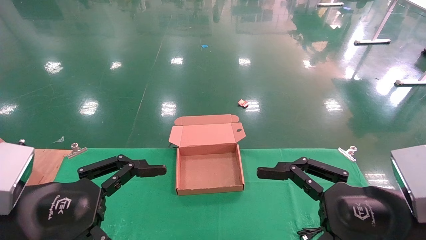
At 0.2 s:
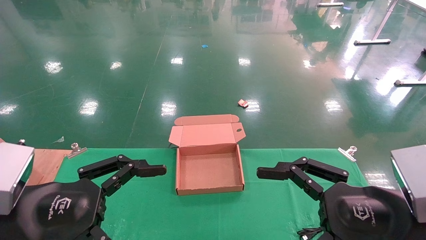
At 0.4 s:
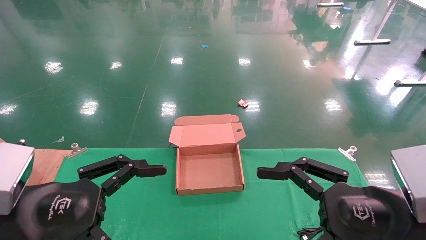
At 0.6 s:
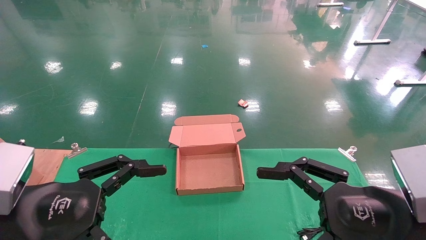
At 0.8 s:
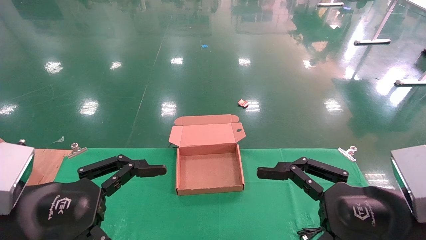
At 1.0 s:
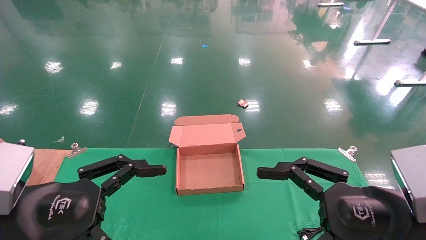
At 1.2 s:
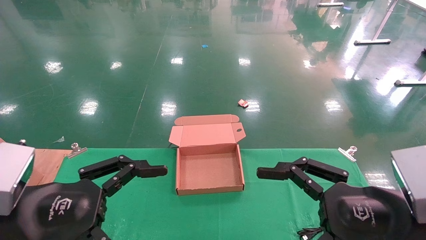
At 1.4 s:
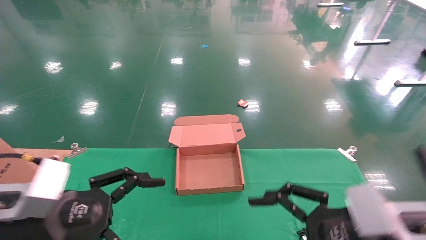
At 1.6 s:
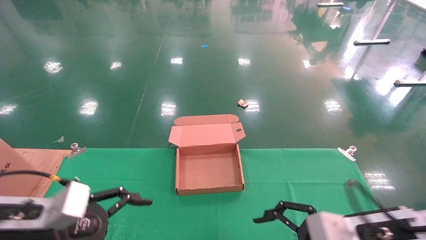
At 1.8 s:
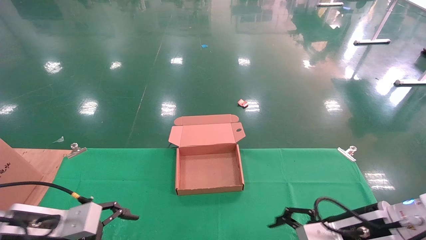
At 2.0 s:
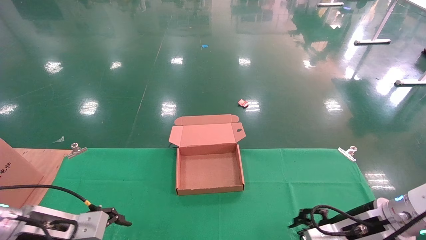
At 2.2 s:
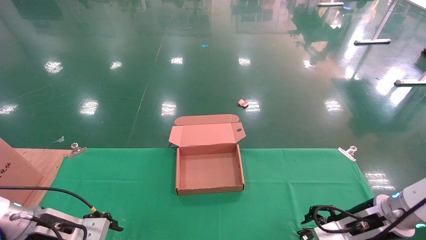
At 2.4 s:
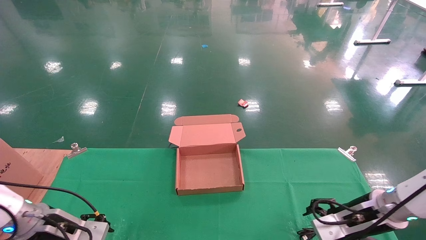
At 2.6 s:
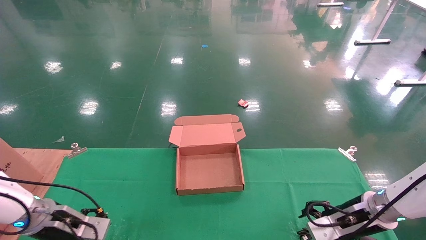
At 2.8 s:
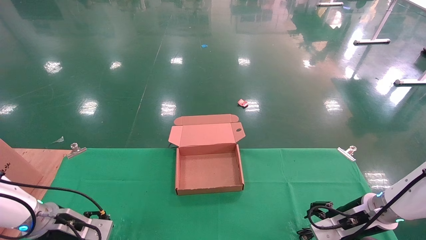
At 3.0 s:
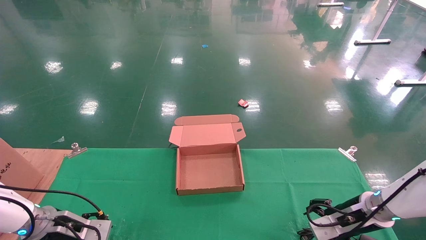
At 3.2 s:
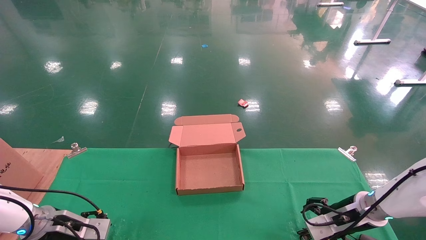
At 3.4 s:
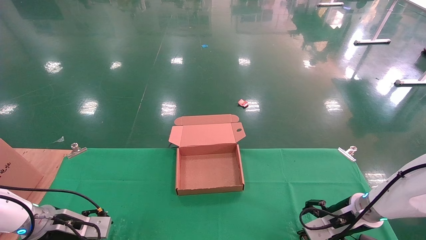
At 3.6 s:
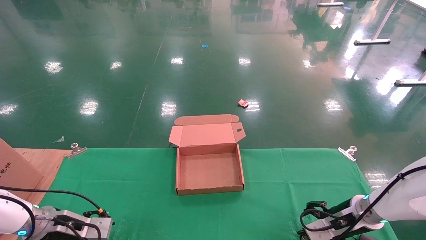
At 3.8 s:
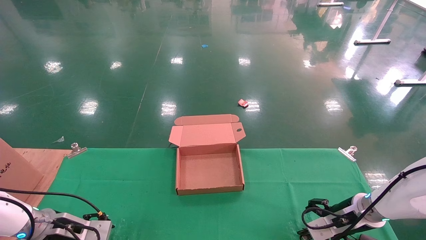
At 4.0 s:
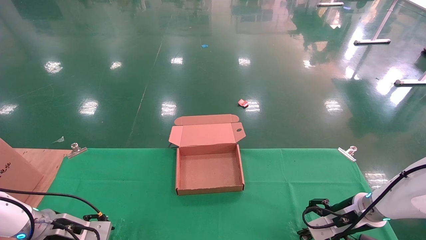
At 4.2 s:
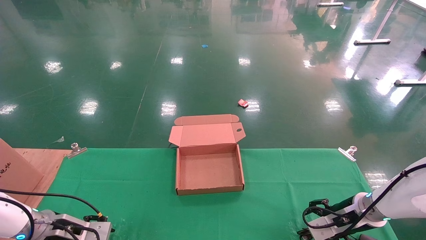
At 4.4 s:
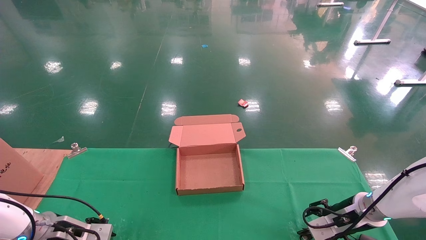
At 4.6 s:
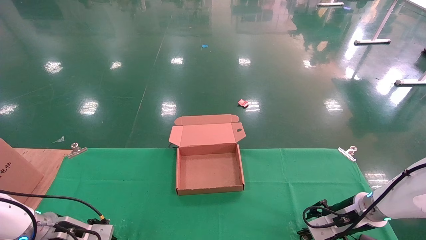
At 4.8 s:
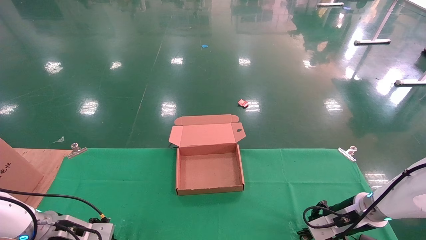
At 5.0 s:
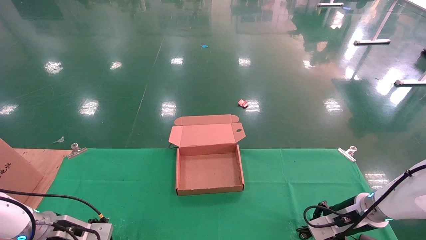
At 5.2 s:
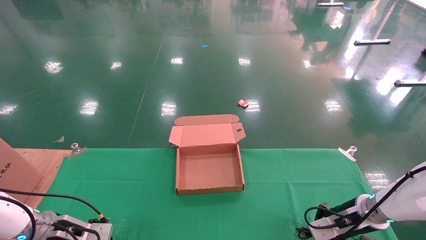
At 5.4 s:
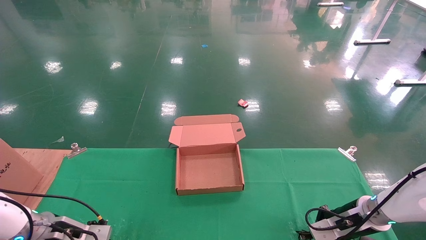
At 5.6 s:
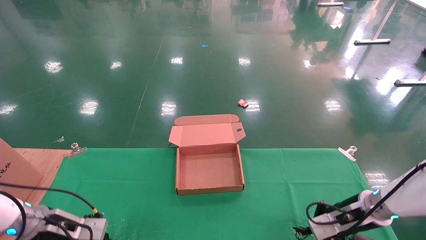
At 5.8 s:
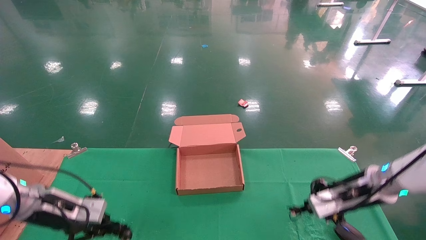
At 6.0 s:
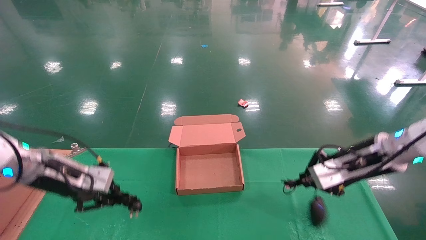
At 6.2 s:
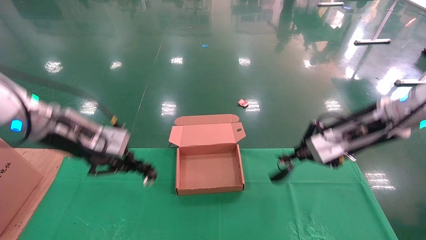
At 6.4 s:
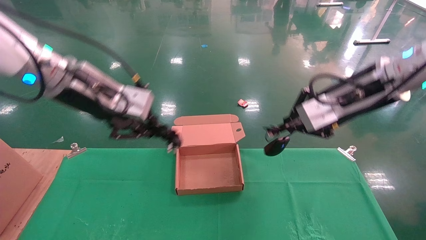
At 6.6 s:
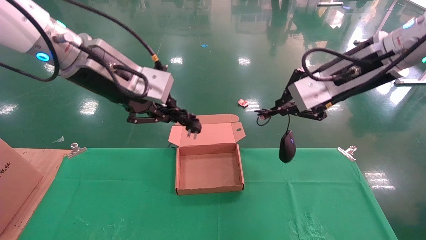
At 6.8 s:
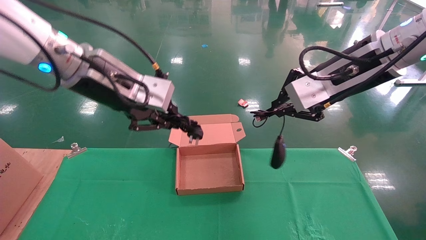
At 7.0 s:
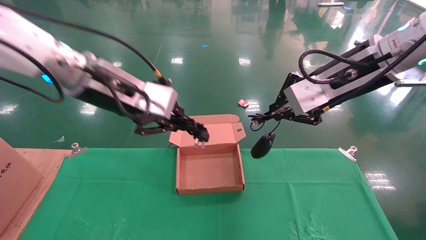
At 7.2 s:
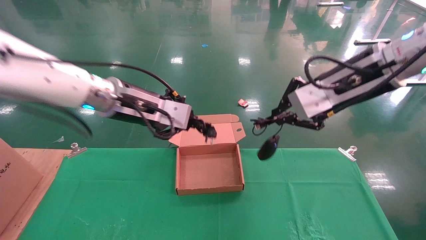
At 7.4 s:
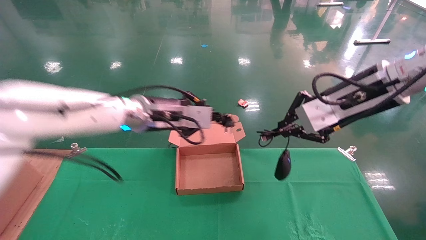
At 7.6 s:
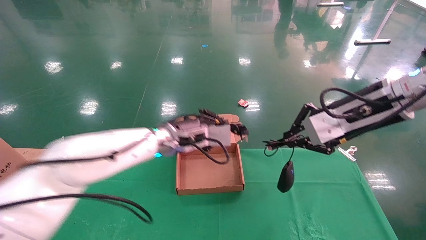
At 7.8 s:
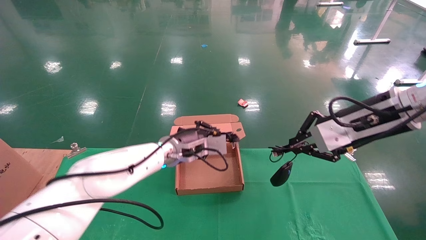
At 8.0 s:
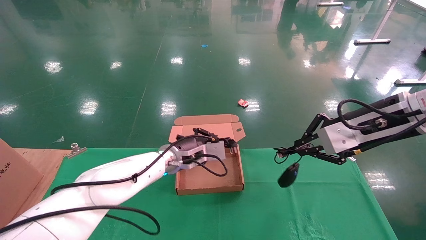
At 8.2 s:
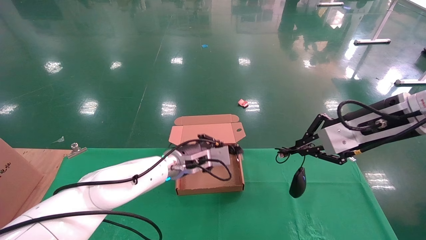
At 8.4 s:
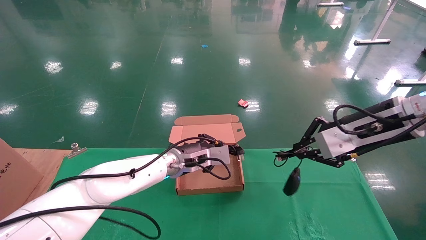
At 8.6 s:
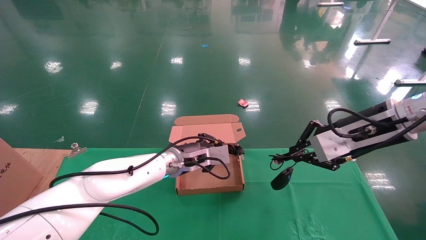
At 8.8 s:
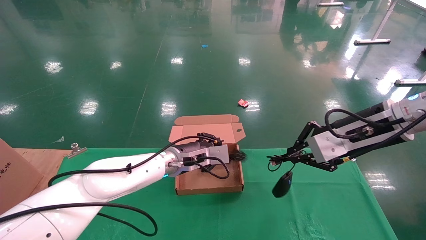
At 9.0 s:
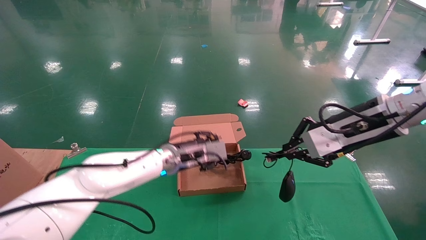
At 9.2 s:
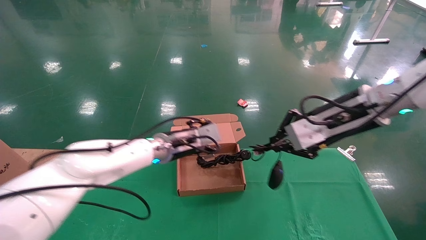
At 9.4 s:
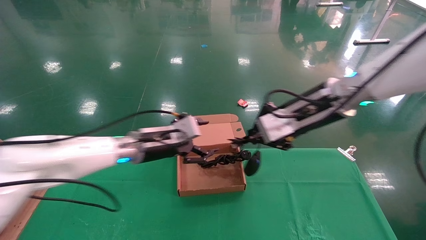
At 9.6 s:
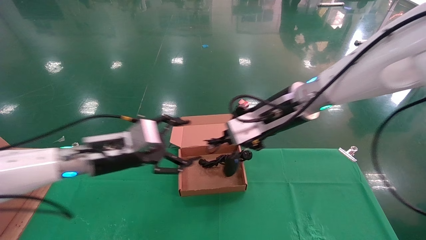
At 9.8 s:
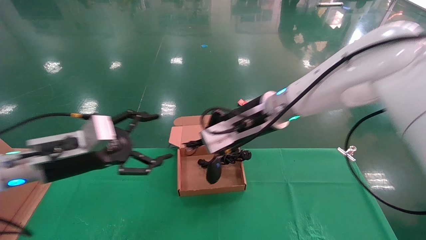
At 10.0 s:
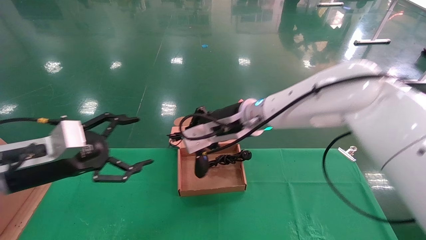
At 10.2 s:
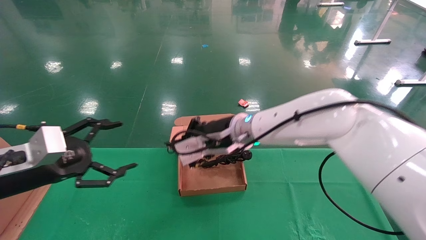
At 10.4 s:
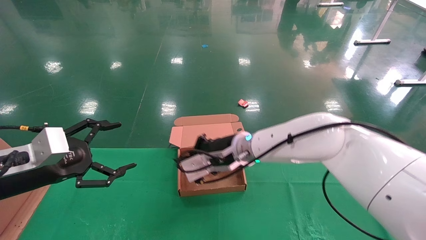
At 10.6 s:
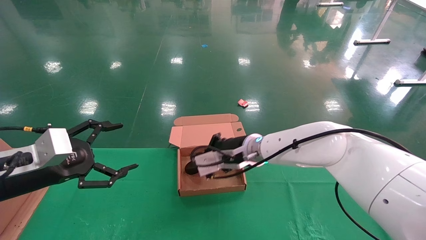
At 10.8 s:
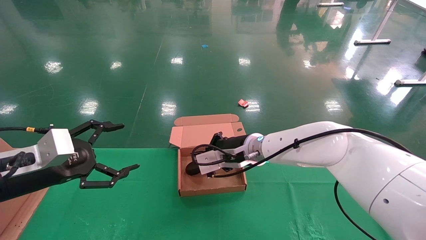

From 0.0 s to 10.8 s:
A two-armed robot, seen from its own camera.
Step, from 1.8 s to 6.0 s: Grab and lift both the mouse and power cord from the accessory packaging area at the same time.
From 0.0 s to 1.6 s: The two grippers go roughly 10 cm forward and downward.
From 1.6 s to 3.0 s: The left gripper heads forward, downward and to the left, covering roughly 20 cm; the right gripper heads forward, downward and to the right, covering some 20 cm.
From 3.0 s to 4.6 s: The left gripper closes its fingers, while the right gripper closes.
From 4.6 s to 6.2 s: Both grippers travel together upward, some 25 cm. The left gripper closes up, while the right gripper closes up.
From 6.2 s to 7.8 s: The right gripper travels upward and back again, roughly 10 cm each way. Meanwhile the left gripper shifts approximately 25 cm to the right, forward and downward.
From 7.8 s to 9.2 s: The left gripper opens up. The right gripper is displaced to the left by approximately 5 cm.
From 9.2 s to 10.8 s: The left gripper moves to the left and backward, some 30 cm, and opens its fingers; the right gripper goes some 25 cm to the left, downward and forward.

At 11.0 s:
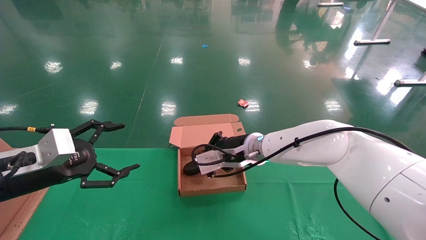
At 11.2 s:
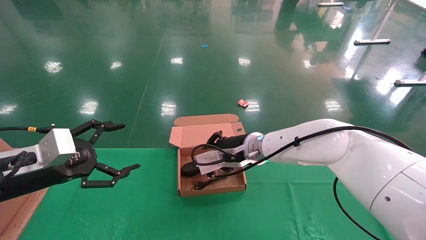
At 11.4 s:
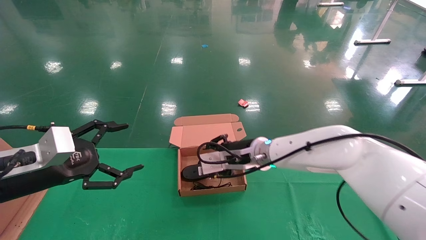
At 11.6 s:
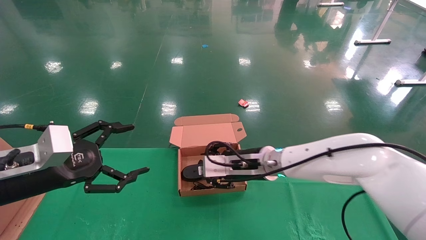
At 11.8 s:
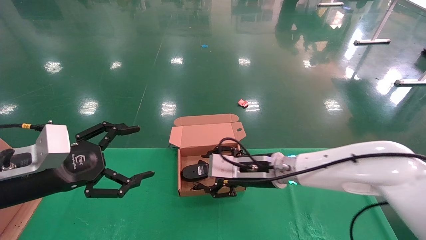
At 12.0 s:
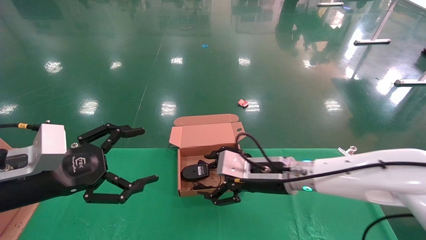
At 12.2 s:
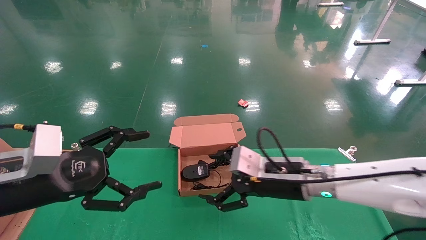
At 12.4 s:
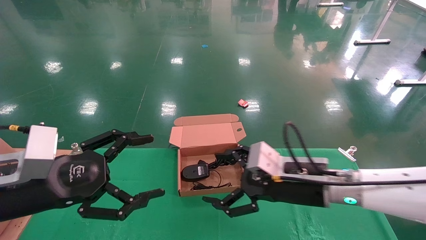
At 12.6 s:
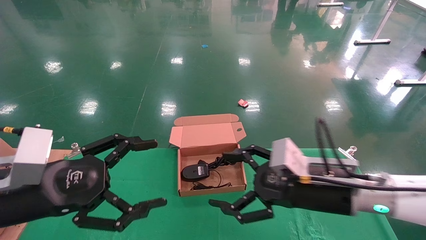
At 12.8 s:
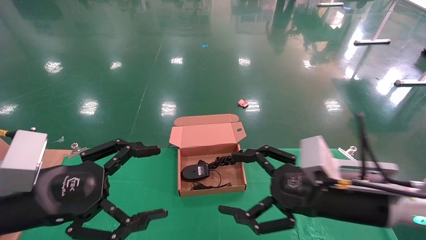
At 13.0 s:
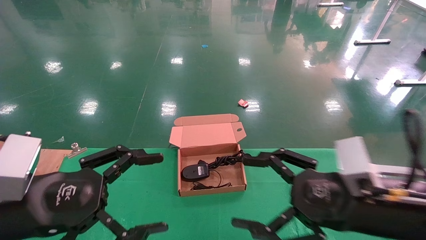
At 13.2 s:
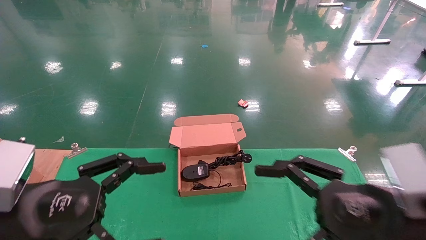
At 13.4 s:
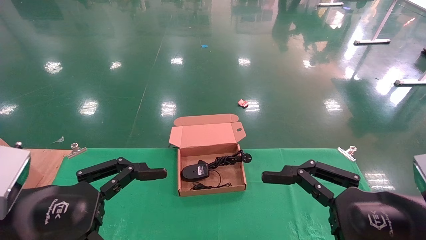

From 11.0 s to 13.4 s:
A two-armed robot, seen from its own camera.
From 11.0 s to 12.2 s: The left gripper shifts about 5 cm to the right and backward, while the right gripper moves backward and to the right, approximately 15 cm, and opens up.
From 12.2 s to 13.4 s: The right gripper travels backward and to the right by approximately 20 cm. The left gripper shifts approximately 5 cm backward.
